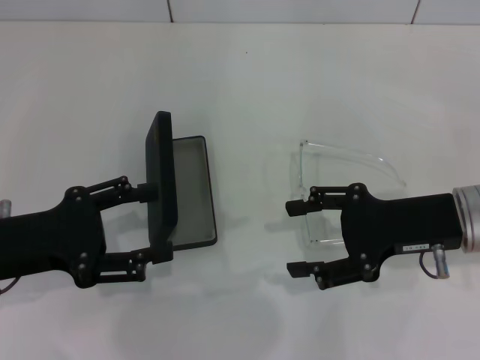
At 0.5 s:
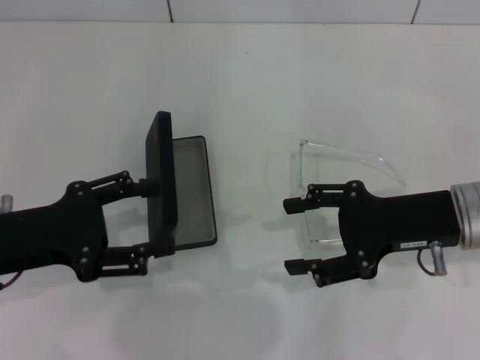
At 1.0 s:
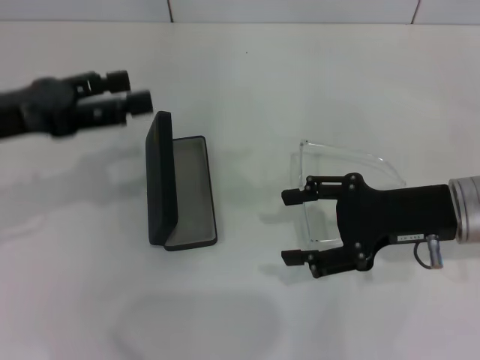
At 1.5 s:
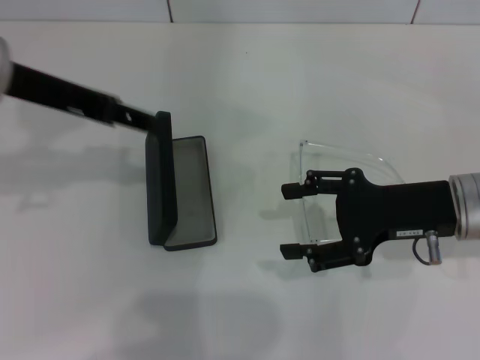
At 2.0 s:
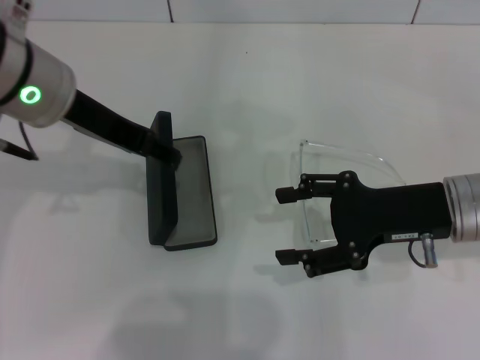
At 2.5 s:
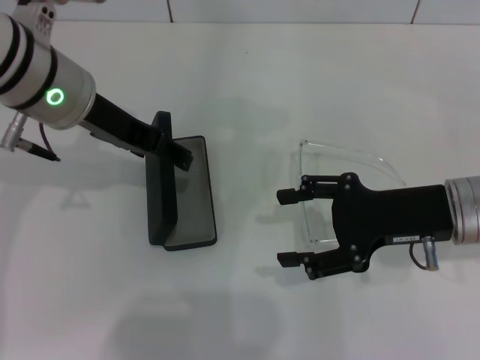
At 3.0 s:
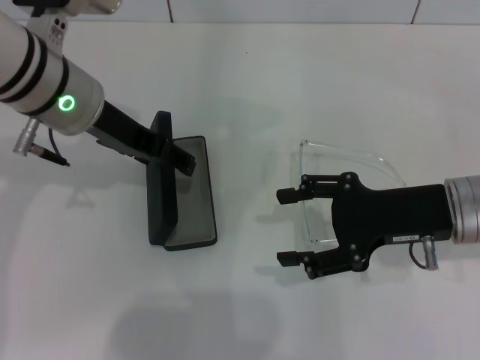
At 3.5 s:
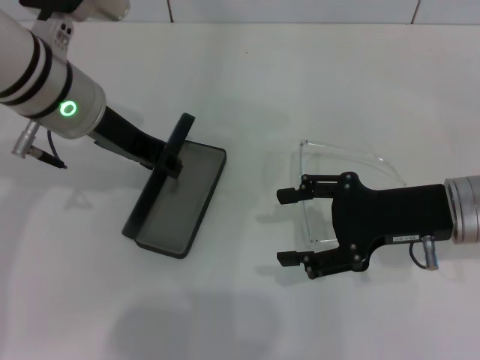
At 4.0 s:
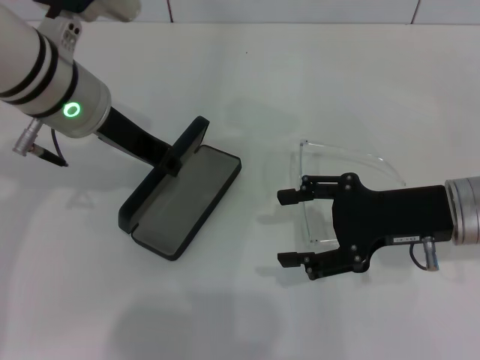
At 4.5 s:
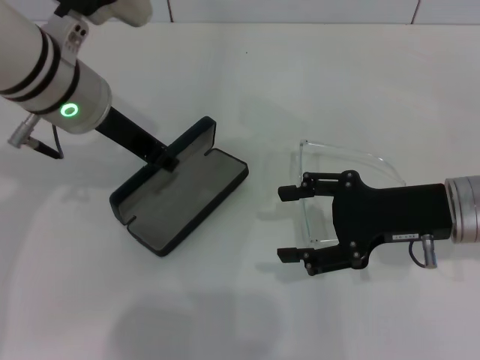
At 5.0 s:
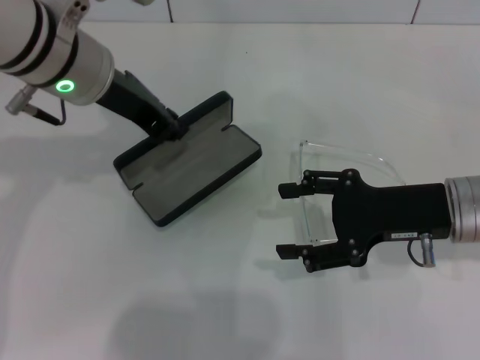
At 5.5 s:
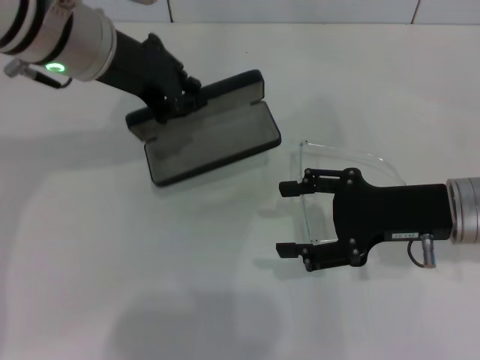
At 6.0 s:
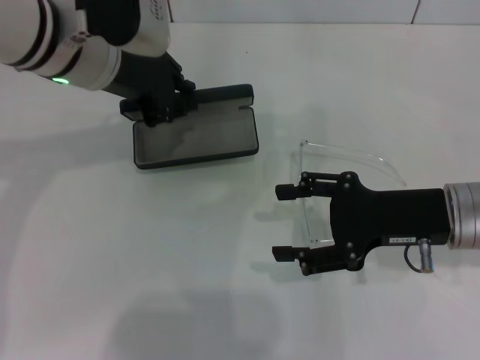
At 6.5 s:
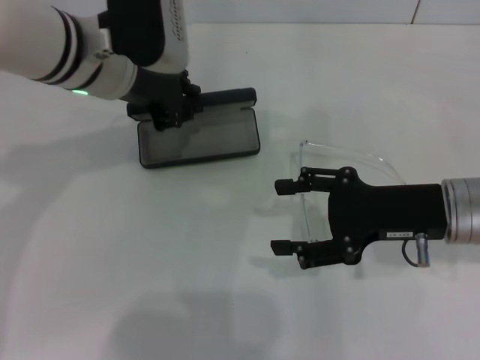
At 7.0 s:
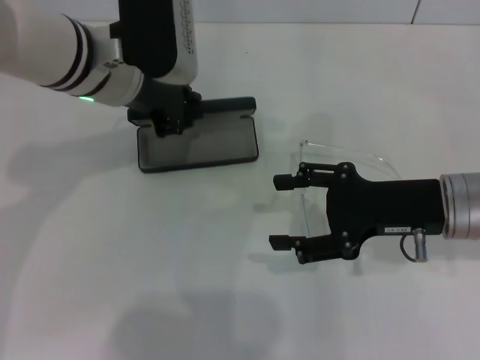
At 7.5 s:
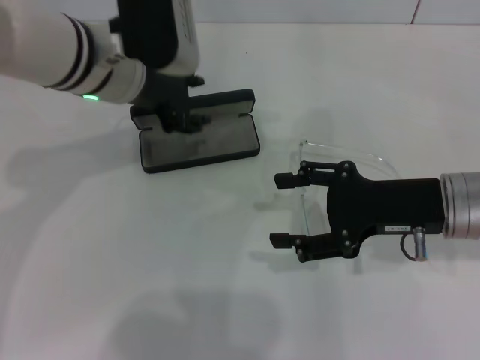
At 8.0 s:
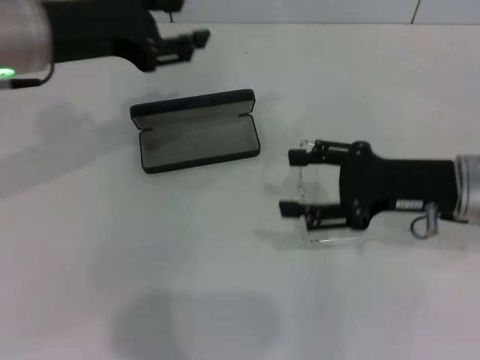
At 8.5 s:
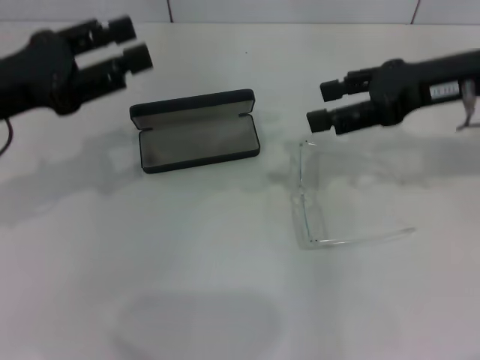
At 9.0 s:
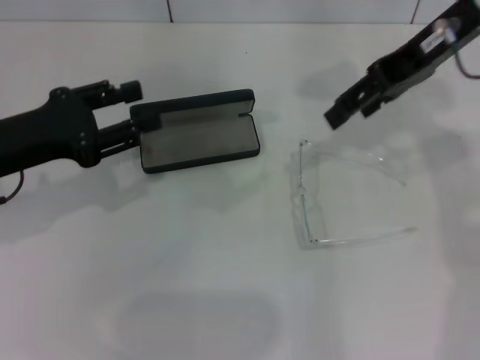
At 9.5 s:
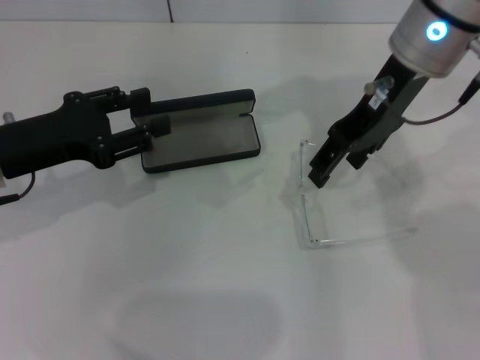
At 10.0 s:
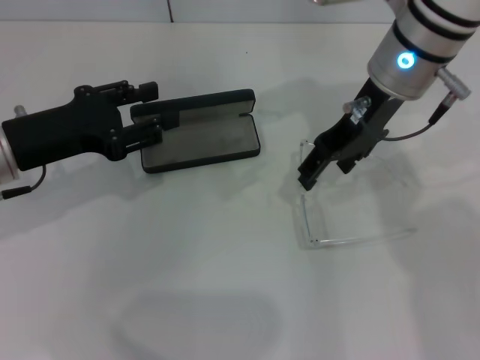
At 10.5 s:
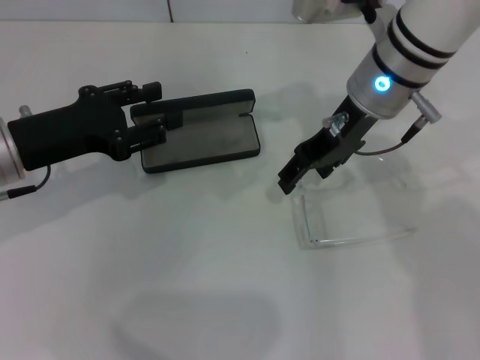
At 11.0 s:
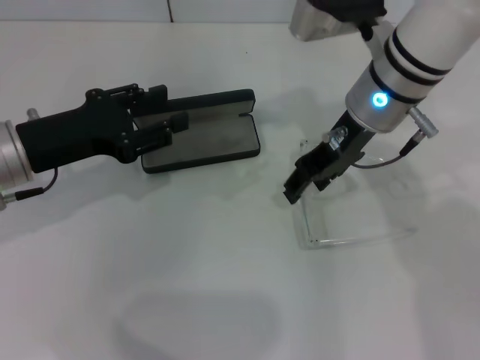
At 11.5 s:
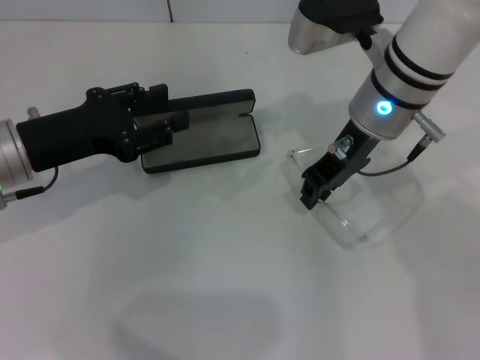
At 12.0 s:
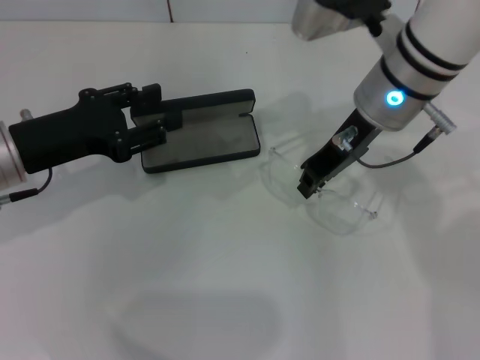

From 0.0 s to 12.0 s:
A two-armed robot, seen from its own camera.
Step, from 0.0 s to 3.0 s: Grab the glasses case with your left hand.
Step, from 3.5 s to 7.0 s: Place the glasses case in the center of the table with your left hand.
Step, from 7.5 s to 11.5 s: Grab the eyeglass frame with your right hand.
From 0.0 s to 2.0 s: The left gripper goes approximately 20 cm forward, upward and to the right.
From 2.0 s to 4.0 s: The left gripper closes its fingers.
From 6.0 s to 8.0 s: The left gripper travels to the left by roughly 5 cm, and opens its fingers.
From 8.0 s to 10.0 s: The right gripper shifts some 15 cm to the left, forward and upward. Meanwhile the left gripper is displaced downward and to the left by roughly 10 cm.
From 10.0 s to 12.0 s: The right gripper closes.

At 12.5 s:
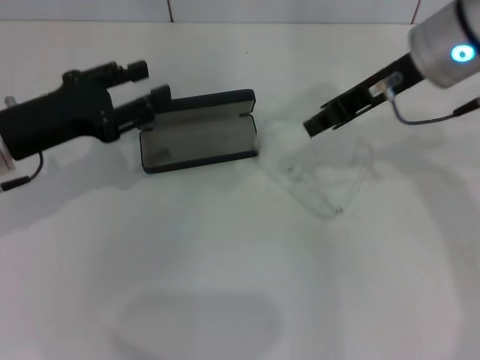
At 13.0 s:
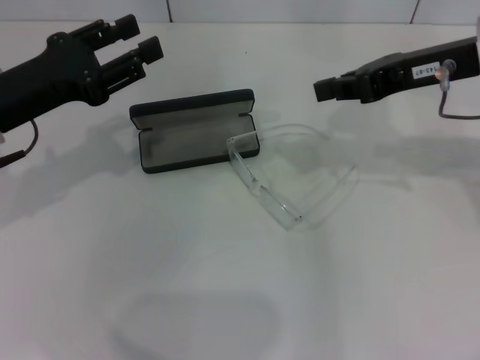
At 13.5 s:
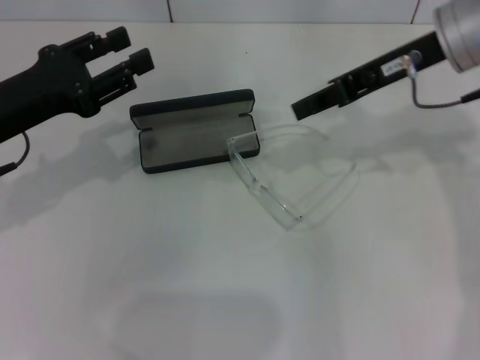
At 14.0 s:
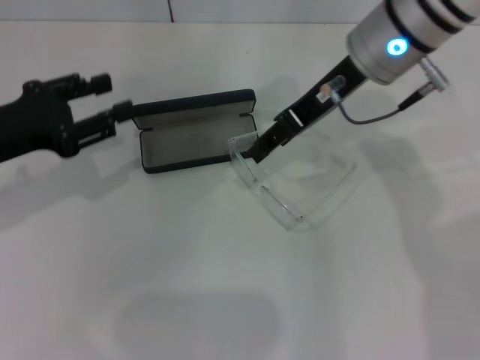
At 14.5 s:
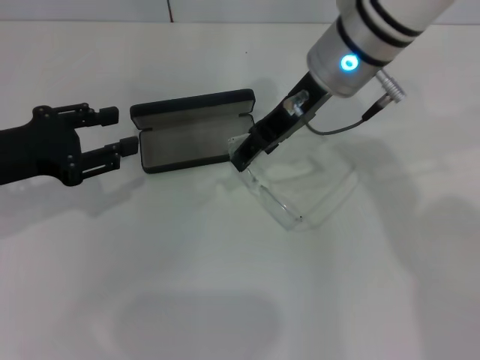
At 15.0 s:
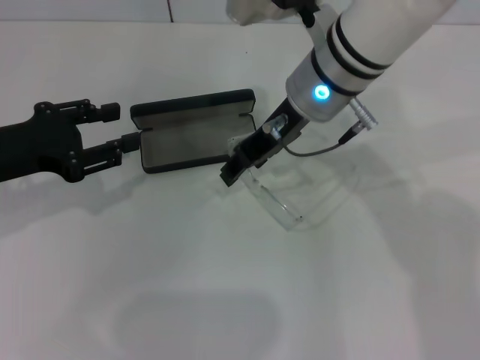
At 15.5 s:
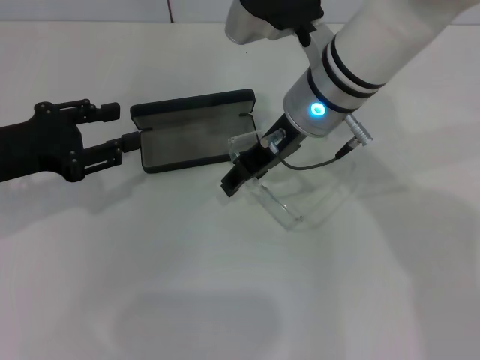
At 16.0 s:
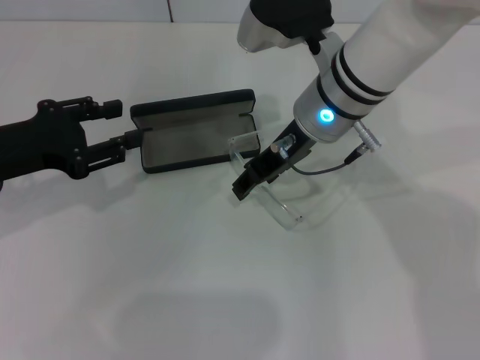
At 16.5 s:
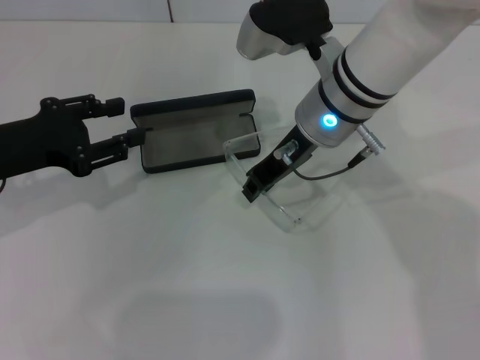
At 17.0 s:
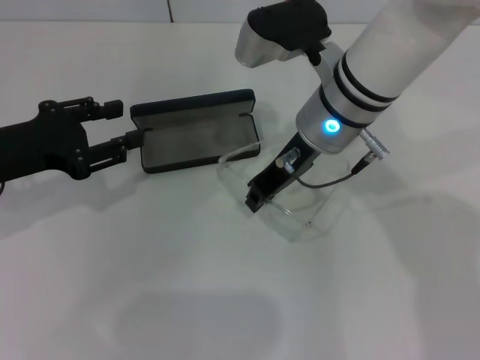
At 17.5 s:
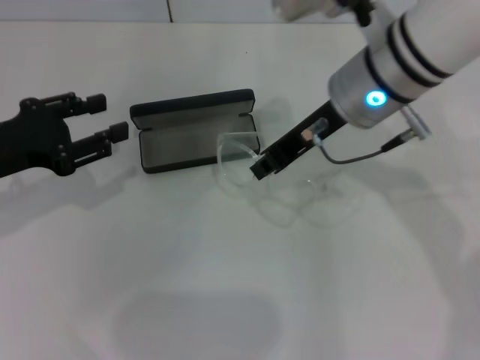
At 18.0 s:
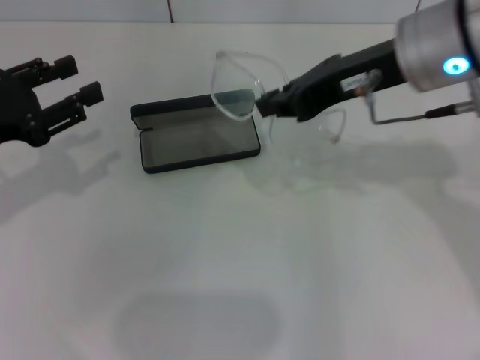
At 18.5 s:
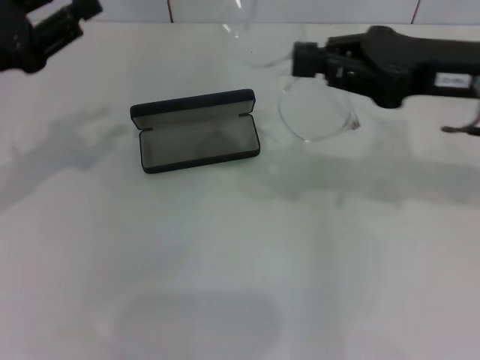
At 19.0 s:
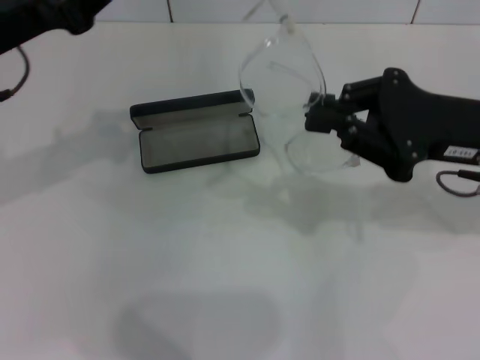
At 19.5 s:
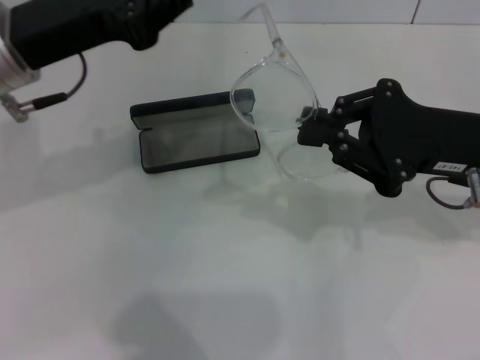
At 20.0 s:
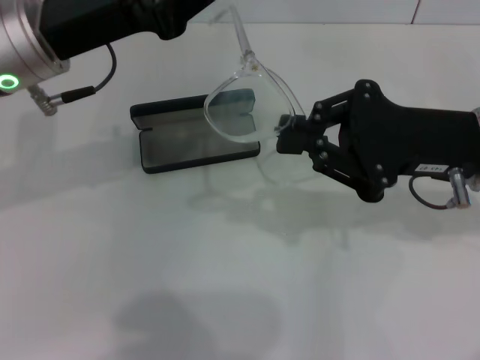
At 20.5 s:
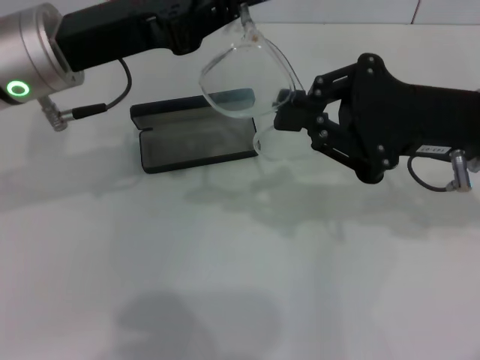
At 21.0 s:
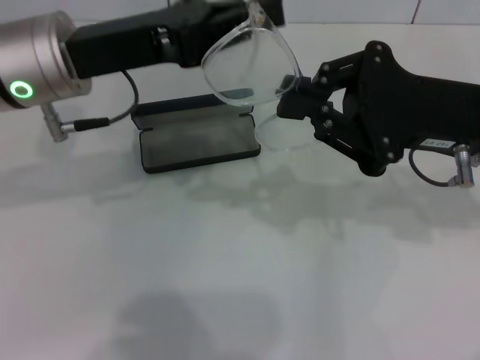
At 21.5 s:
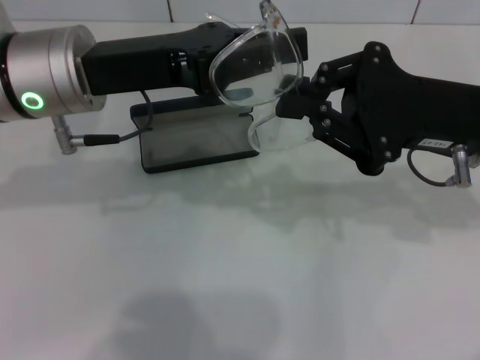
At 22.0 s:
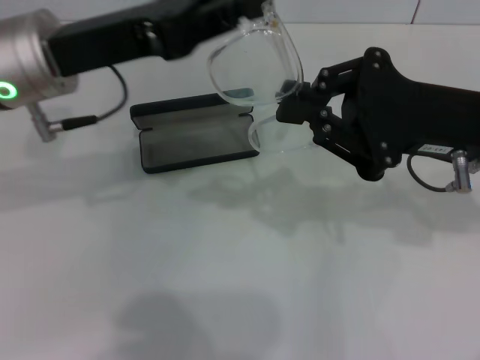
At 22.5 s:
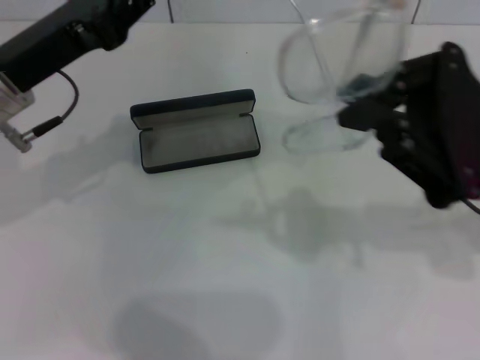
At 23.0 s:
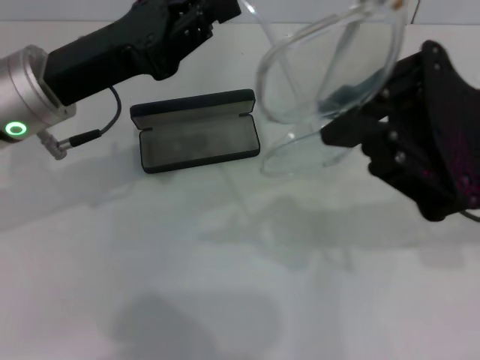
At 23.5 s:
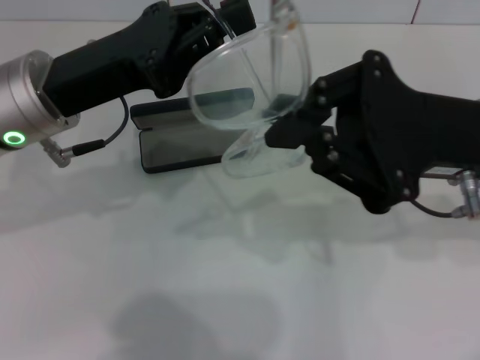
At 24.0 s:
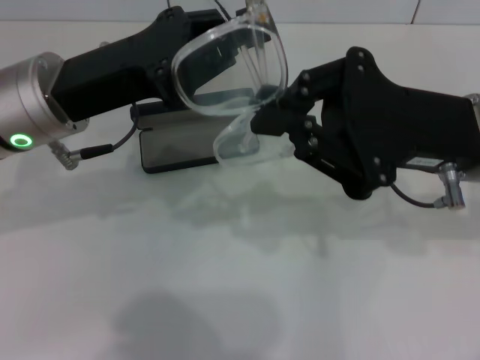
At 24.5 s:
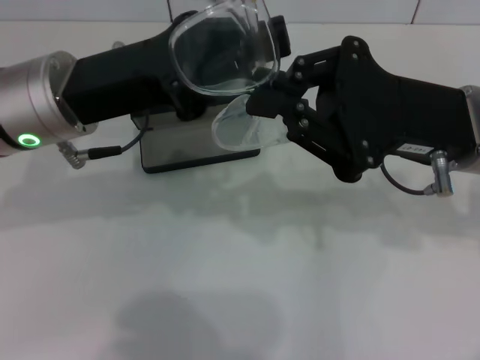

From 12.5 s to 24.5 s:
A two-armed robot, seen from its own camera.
From 12.5 s to 14.5 s: The right gripper is displaced to the left by roughly 10 cm, and opens up.
From 14.5 s to 16.5 s: The right gripper goes roughly 5 cm downward.
From 16.5 s to 18.5 s: The right gripper heads to the right, covering some 15 cm, and closes its fingers.
From 18.5 s to 20.5 s: The left gripper is displaced to the right by about 10 cm, and closes up.
From 20.5 s to 22.5 s: The left gripper ends up roughly 5 cm from where it was.
From 22.5 s to 24.5 s: The left gripper is displaced to the right by some 5 cm.

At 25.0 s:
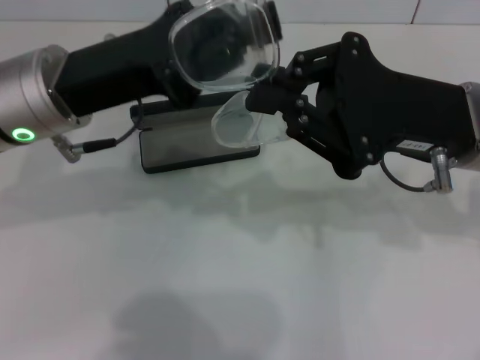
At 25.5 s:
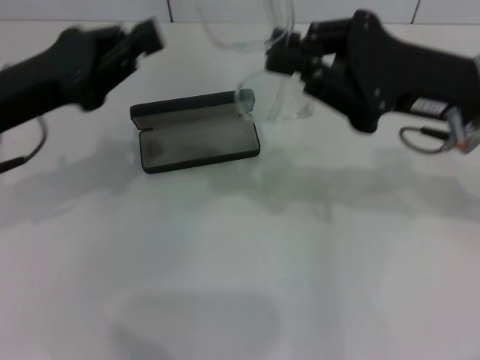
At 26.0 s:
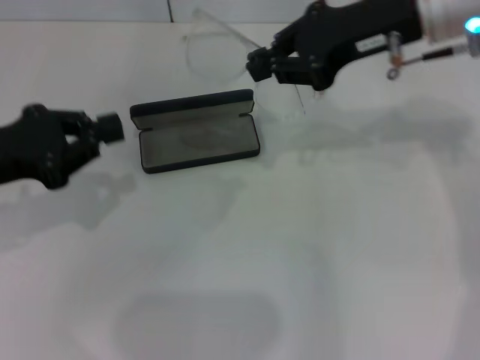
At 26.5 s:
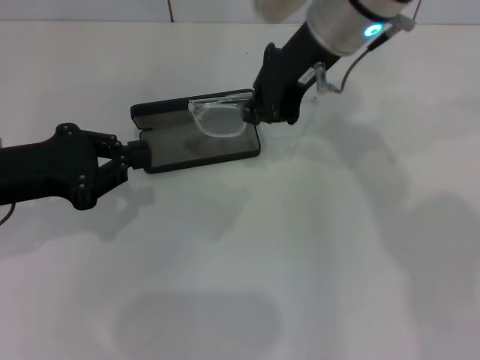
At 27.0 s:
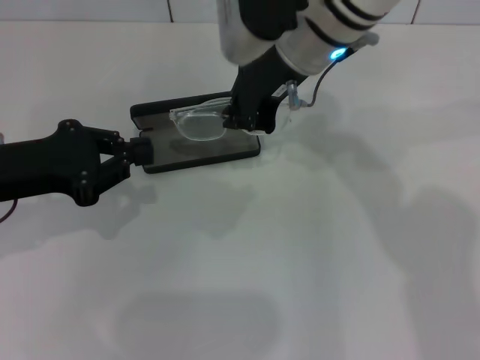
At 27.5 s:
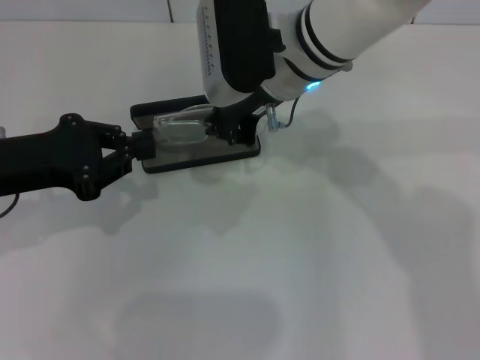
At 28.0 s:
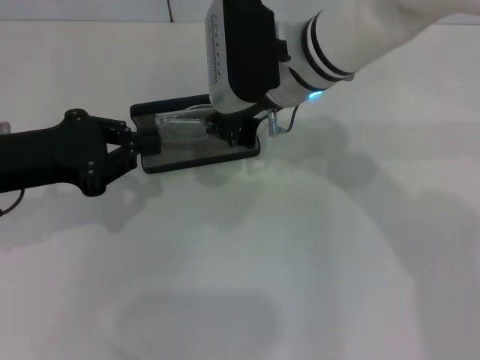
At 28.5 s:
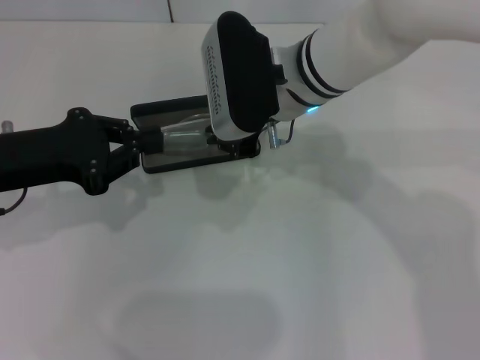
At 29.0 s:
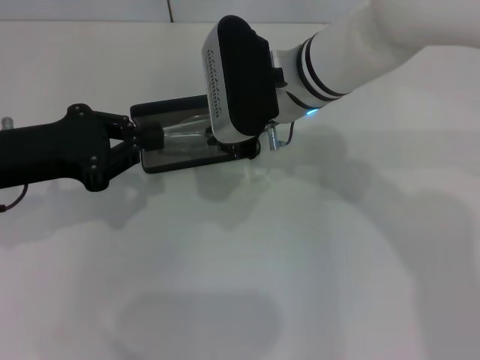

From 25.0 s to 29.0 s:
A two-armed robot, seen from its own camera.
From 25.0 s to 27.0 s: The left gripper is displaced to the left by approximately 10 cm. The right gripper goes approximately 15 cm to the left and forward.
From 27.0 s to 29.0 s: The right gripper travels downward by approximately 5 cm.
